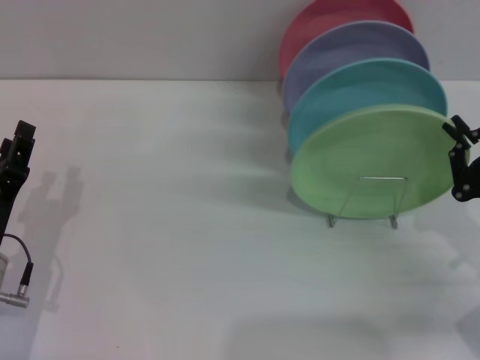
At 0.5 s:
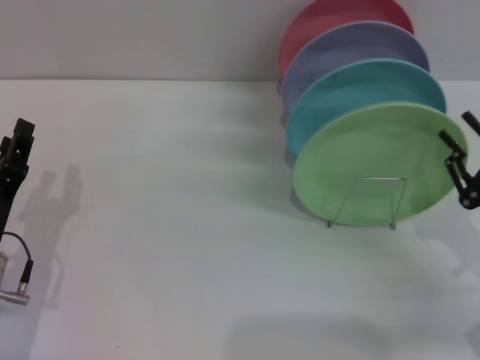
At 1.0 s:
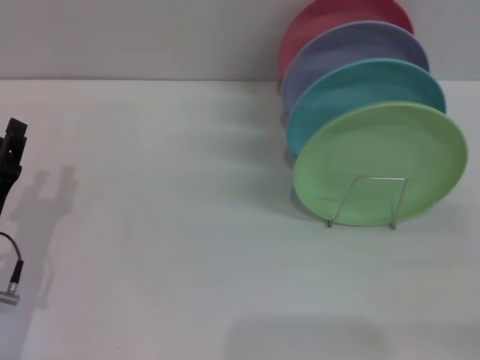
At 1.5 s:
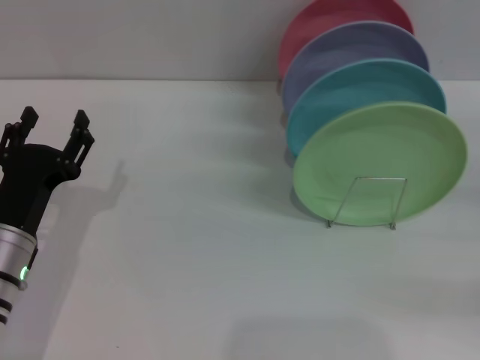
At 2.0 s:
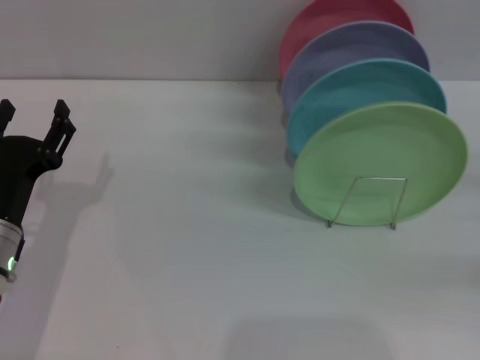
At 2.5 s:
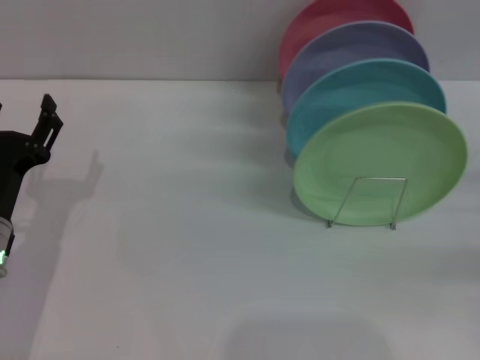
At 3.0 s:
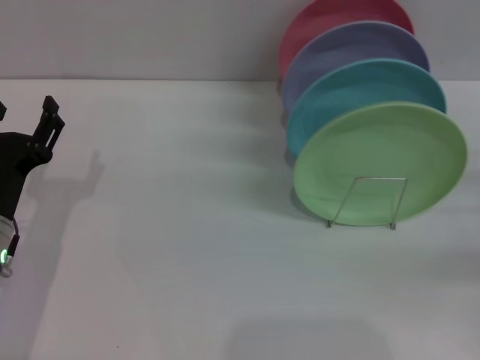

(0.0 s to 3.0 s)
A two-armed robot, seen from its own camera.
Task of the whole recording: Grip the plate with one hand, pass it to the other, then set it on the shelf.
0.0 s - 1.5 s: The right gripper moves to the right, approximately 10 cm, and opens up.
